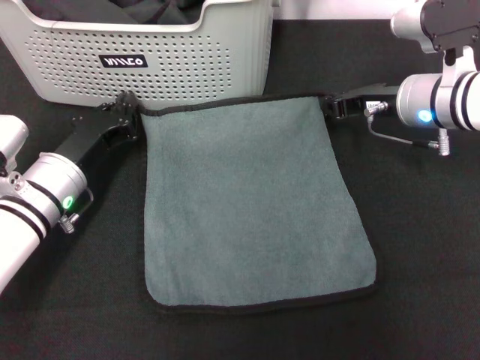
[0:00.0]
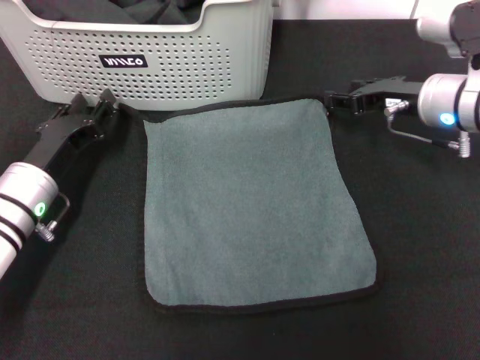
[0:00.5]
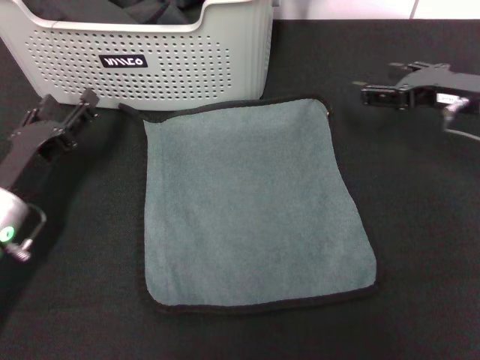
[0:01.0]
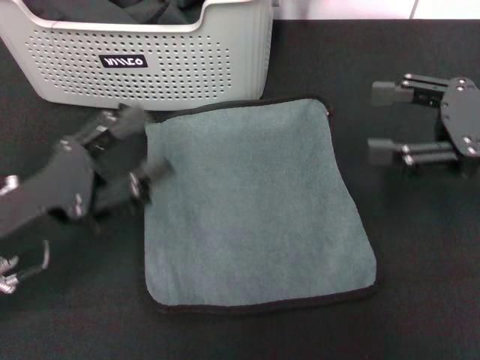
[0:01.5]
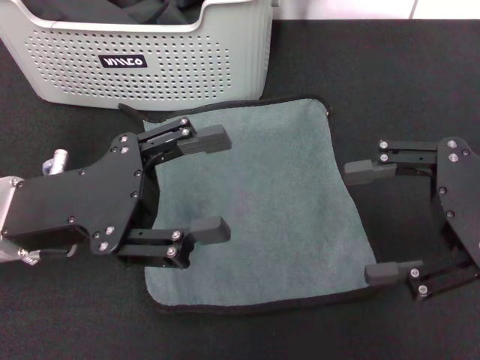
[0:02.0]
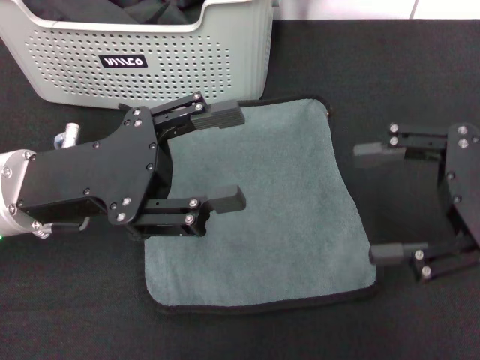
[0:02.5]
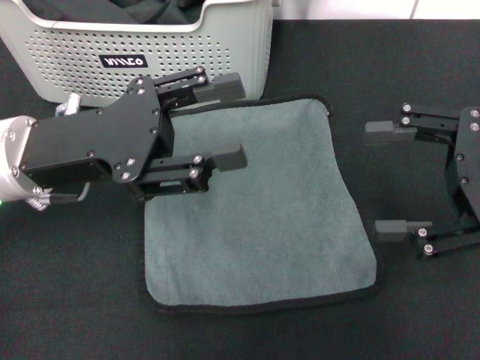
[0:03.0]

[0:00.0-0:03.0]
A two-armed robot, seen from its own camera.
Task of the whole recording: pick up the towel from the storage box and lay it flat on the black tablecloth.
0:00.0 to 0:01.5: The right gripper is displaced backward, to the right and upward by some 15 cm, and opens its fingers. Meanwhile the left gripper goes approximately 10 cm backward and upward, and opens up.
0:01.5 to 0:03.0: The right gripper ends up about 5 cm from where it was, while the left gripper is displaced upward and forward by approximately 10 cm.
